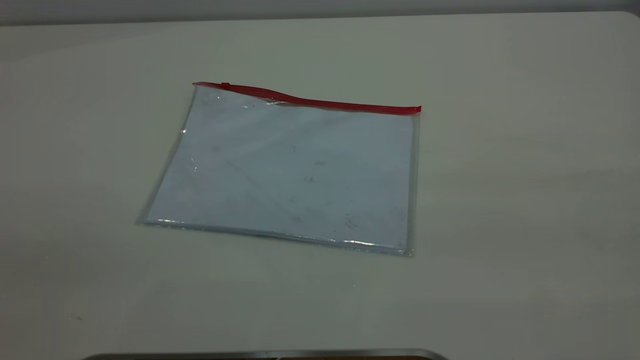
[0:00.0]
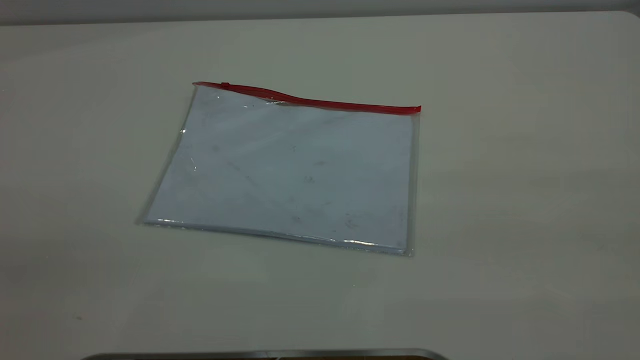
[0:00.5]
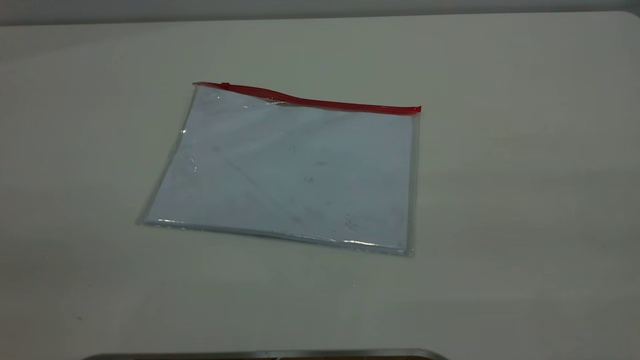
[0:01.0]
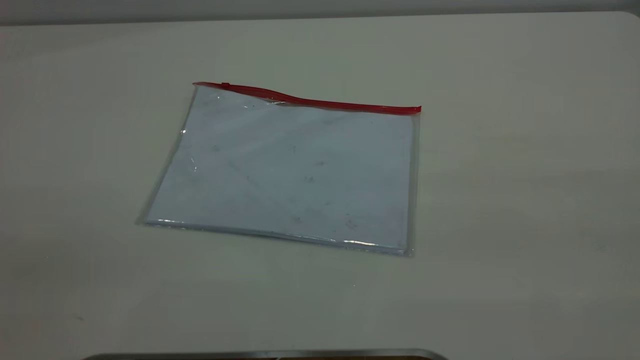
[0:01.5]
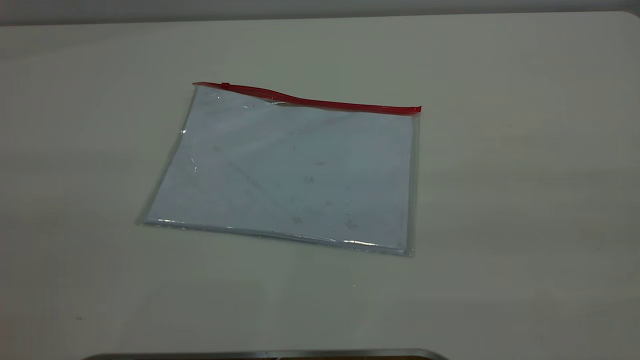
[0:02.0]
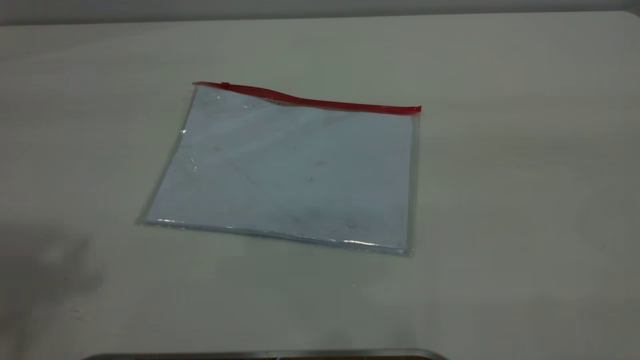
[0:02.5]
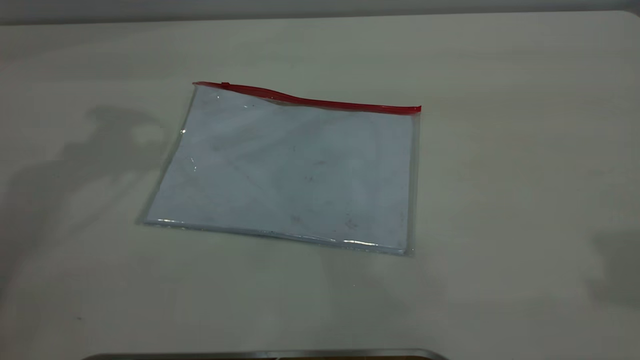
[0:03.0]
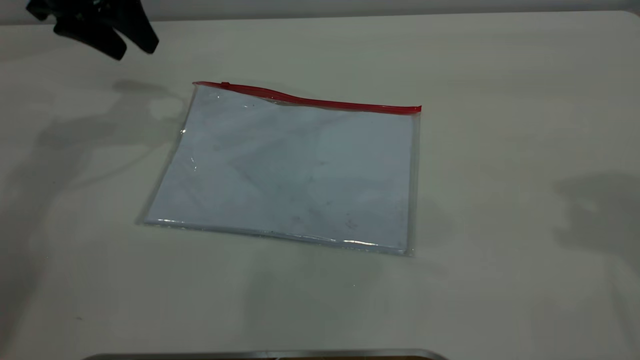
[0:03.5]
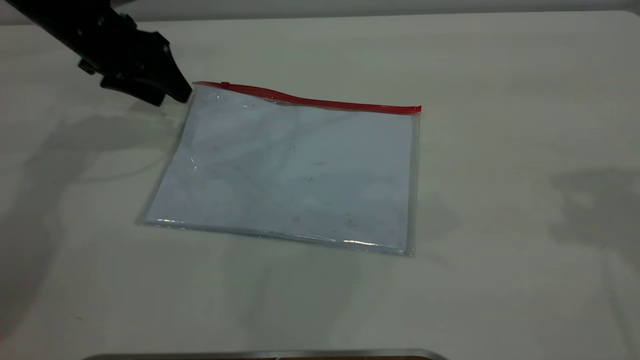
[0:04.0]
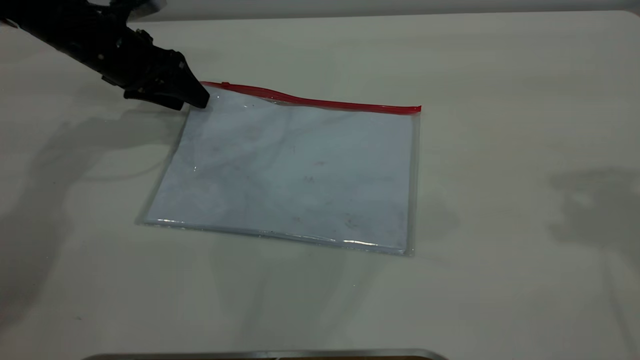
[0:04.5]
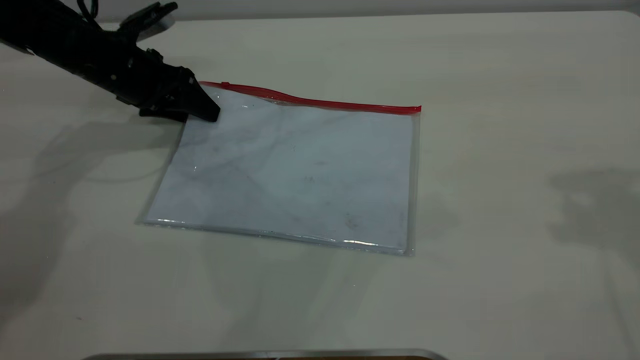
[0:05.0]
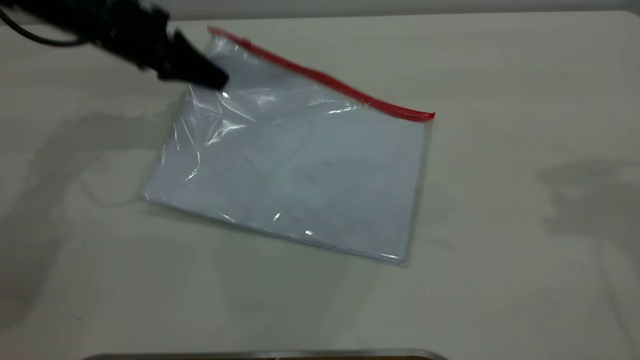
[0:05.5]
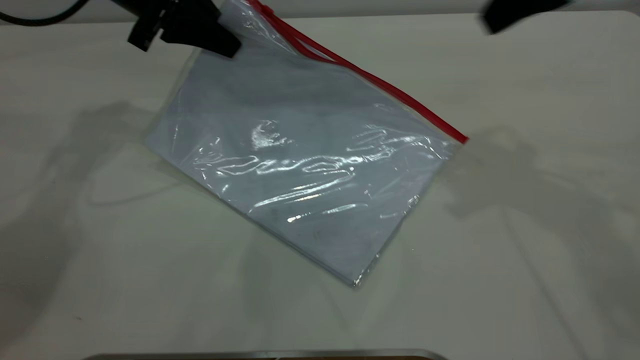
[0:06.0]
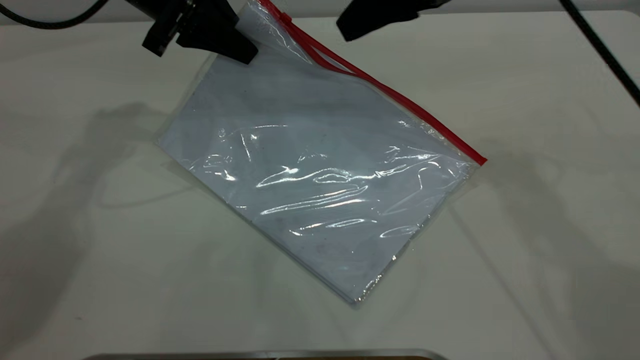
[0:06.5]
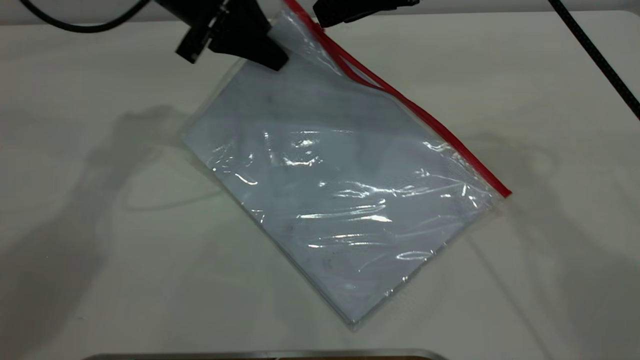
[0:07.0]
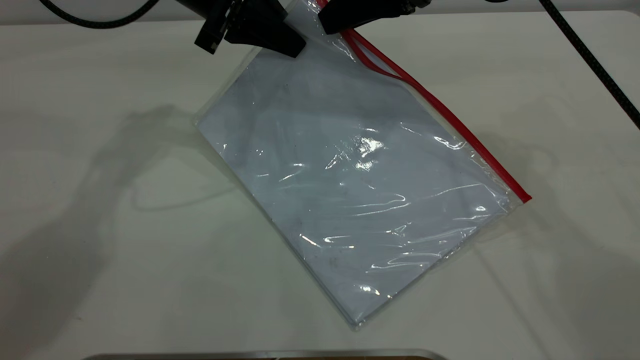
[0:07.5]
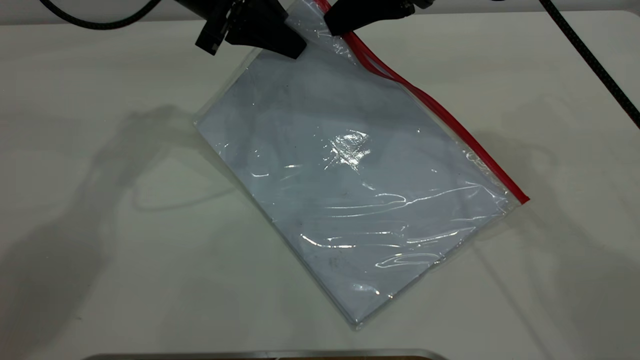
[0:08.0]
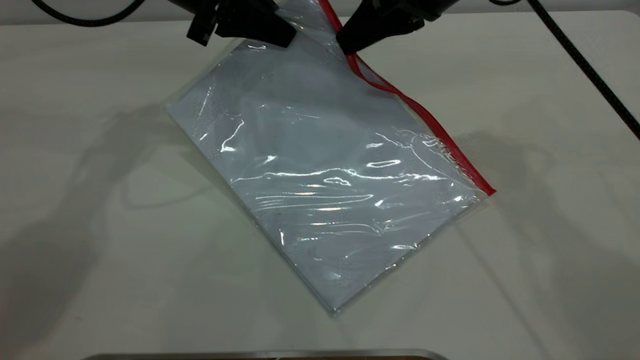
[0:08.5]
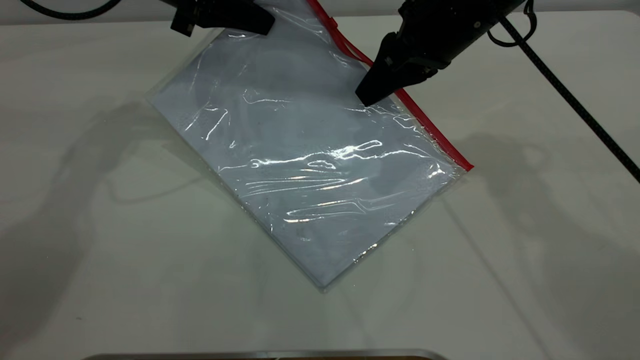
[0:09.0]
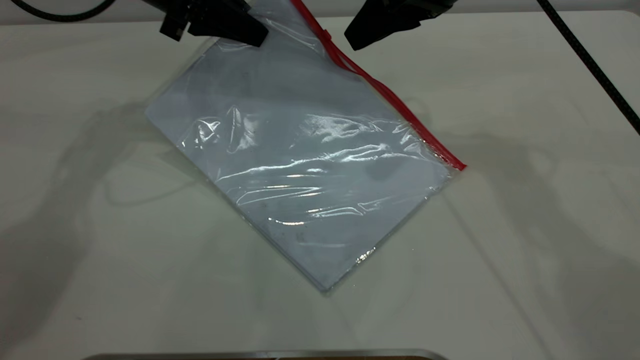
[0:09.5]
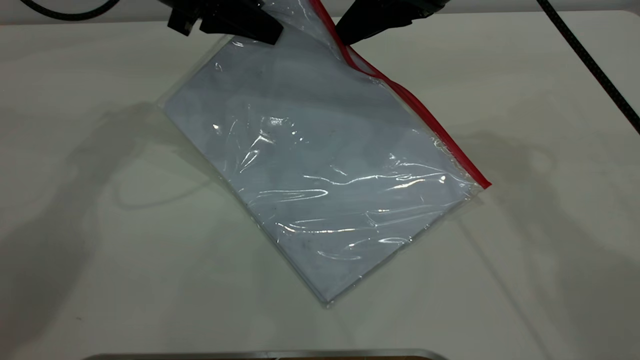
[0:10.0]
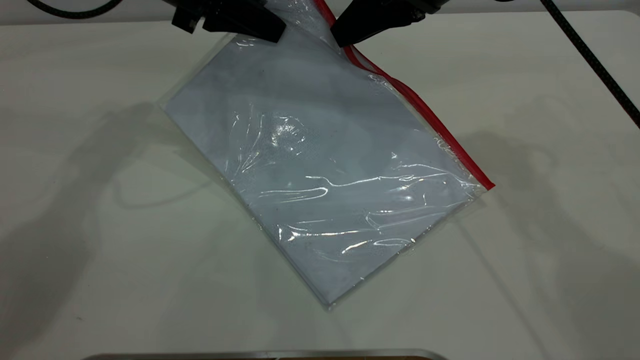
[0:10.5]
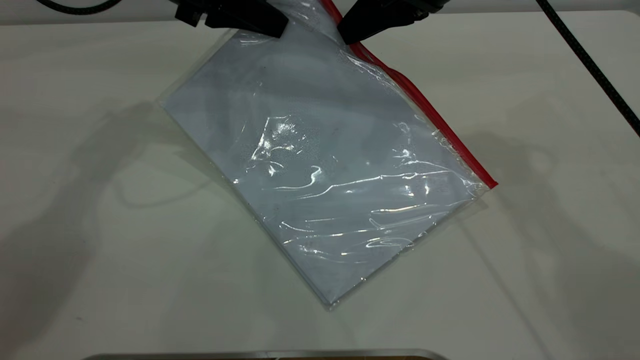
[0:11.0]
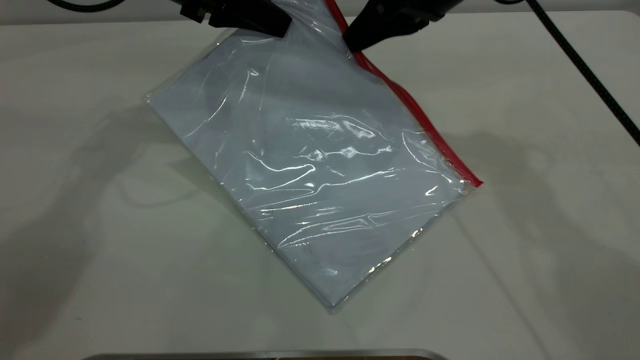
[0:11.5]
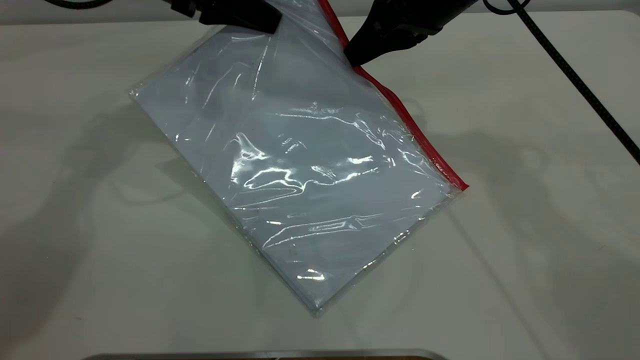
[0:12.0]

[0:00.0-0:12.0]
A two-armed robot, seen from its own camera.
Step, 0:00.0 to 0:05.0: Pick up the transparent plastic bag with the left gripper.
0:02.0 to 0:04.0: The left gripper is displaced forward and downward by some 50 cm.
0:04.0 to 0:06.0: The right gripper is displaced to the left, downward and forward by roughly 15 cm; the left gripper shifts roughly 10 cm to the right and upward, and closes its fingers.
0:06.0 to 0:08.0: The right gripper moves to the left, forward and downward, some 10 cm, and closes up. Meanwhile the left gripper shifts some 5 cm to the right.
0:08.0 to 0:10.0: The right gripper opens.
0:10.0 to 0:12.0: The right gripper closes its fingers.

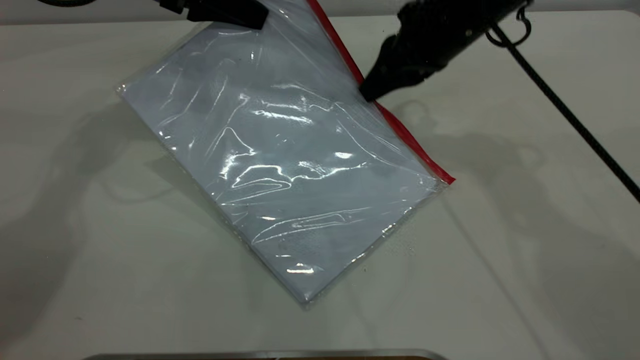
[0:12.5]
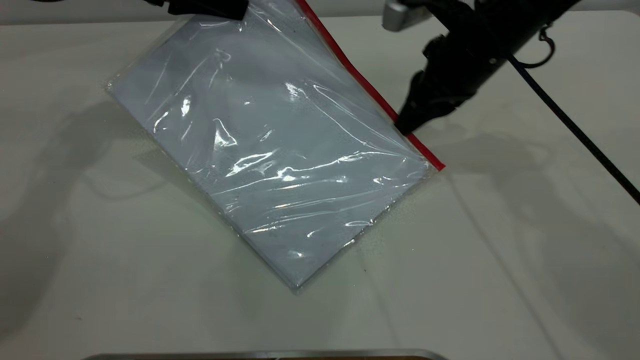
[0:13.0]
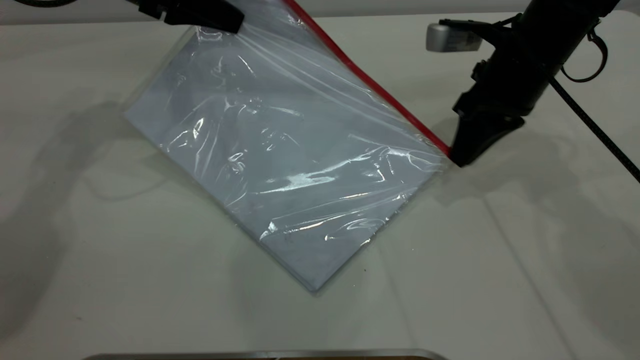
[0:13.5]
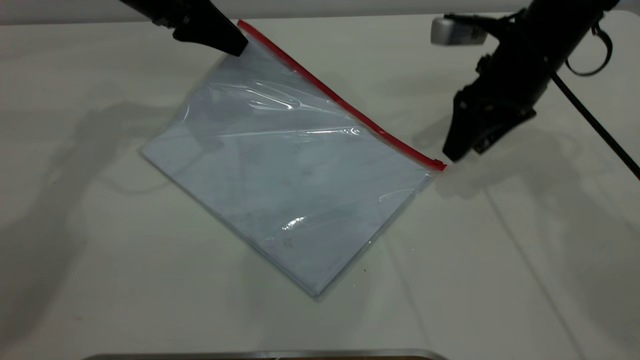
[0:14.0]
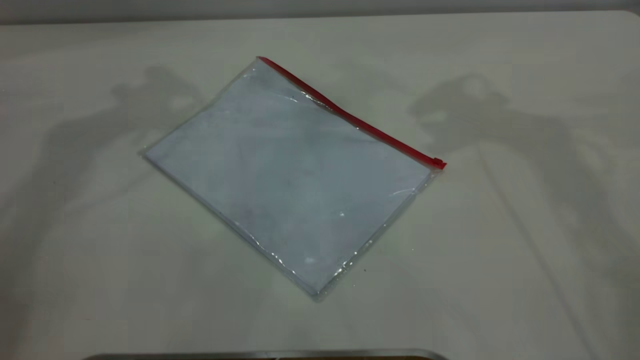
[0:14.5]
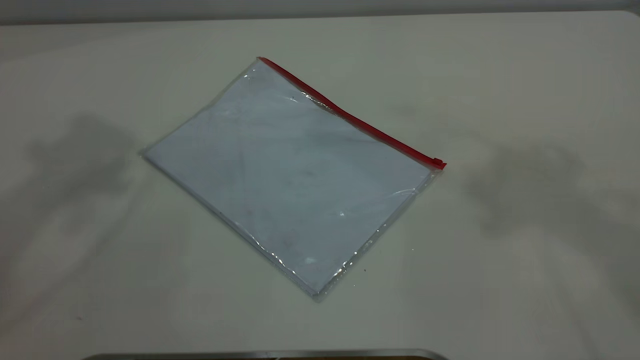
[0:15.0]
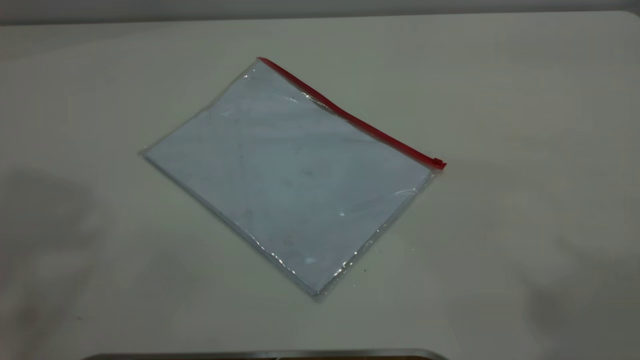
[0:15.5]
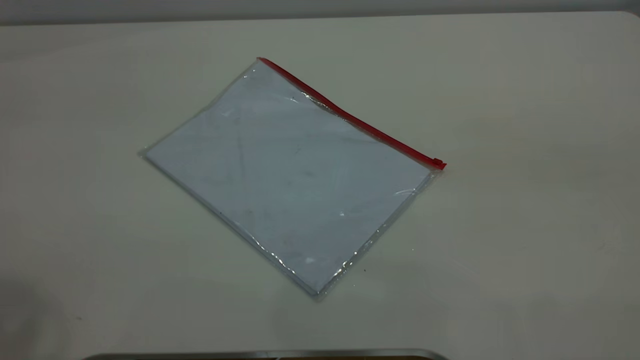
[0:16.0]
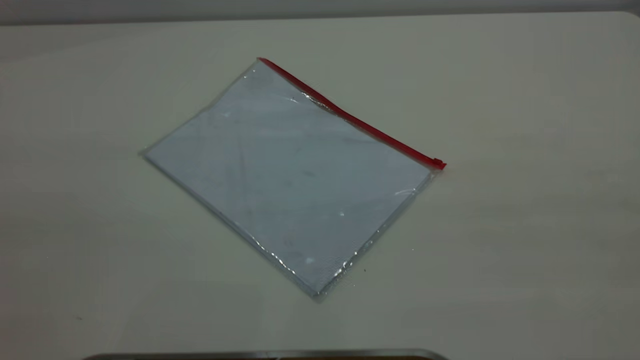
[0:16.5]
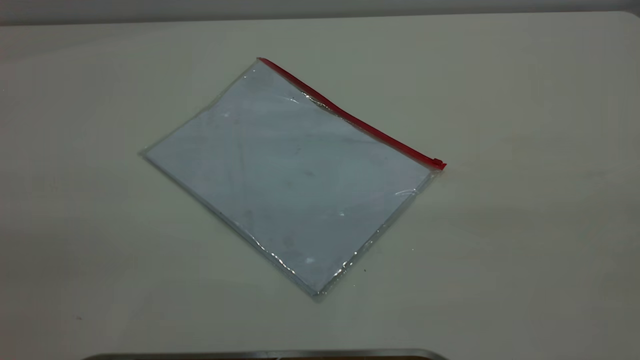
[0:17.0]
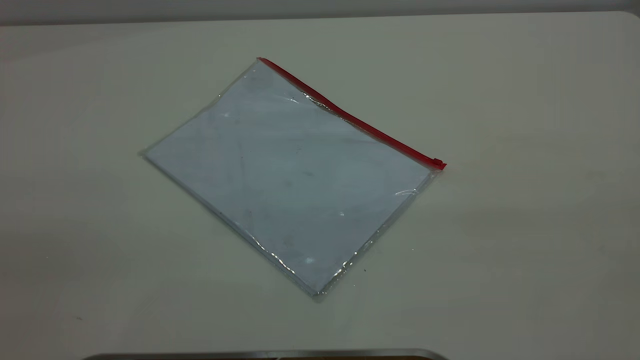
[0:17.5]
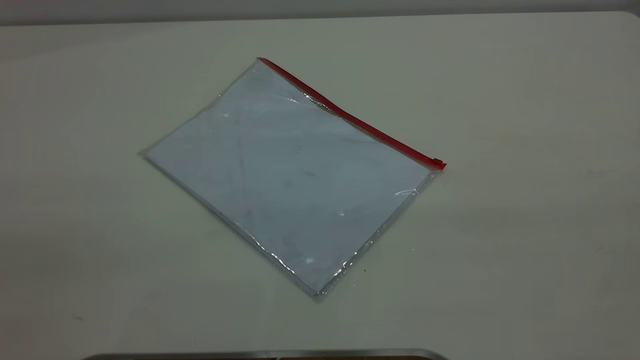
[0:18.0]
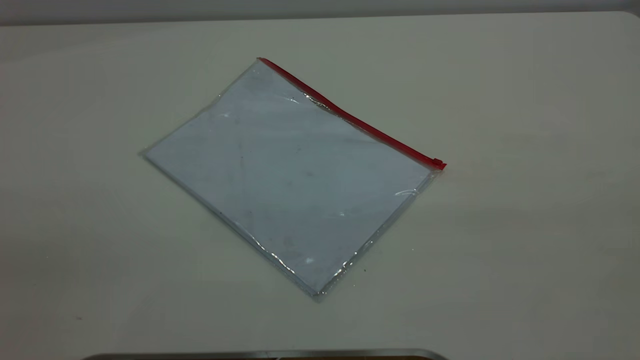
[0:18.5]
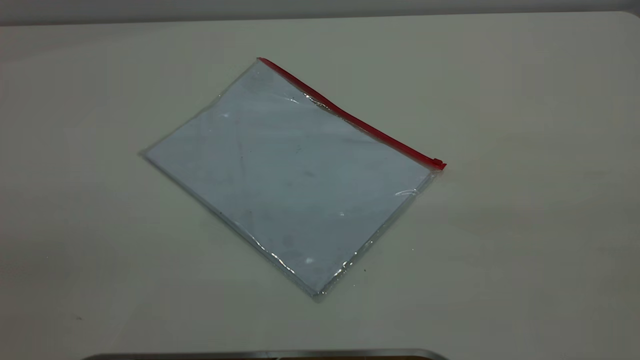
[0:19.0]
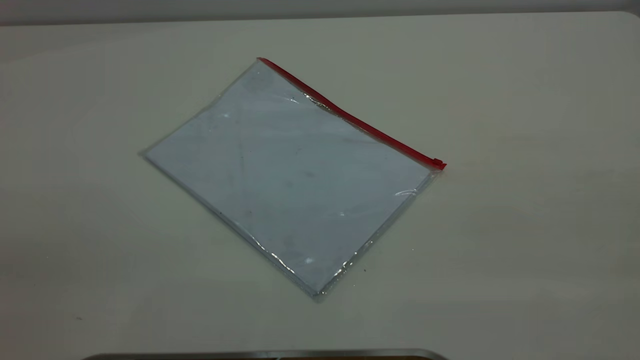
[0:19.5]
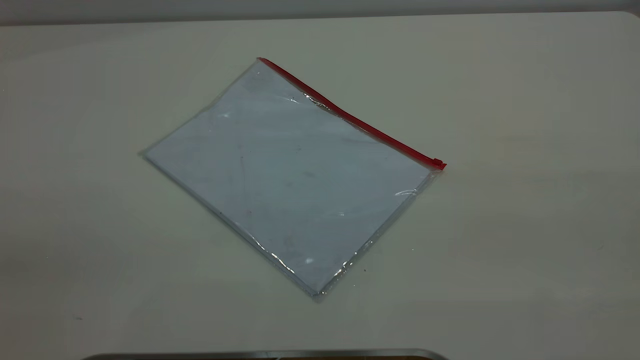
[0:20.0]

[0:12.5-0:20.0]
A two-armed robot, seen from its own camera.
0:12.5 to 0:14.5: The grippers both shift upward by approximately 20 cm. The left gripper opens up; the right gripper opens up.
